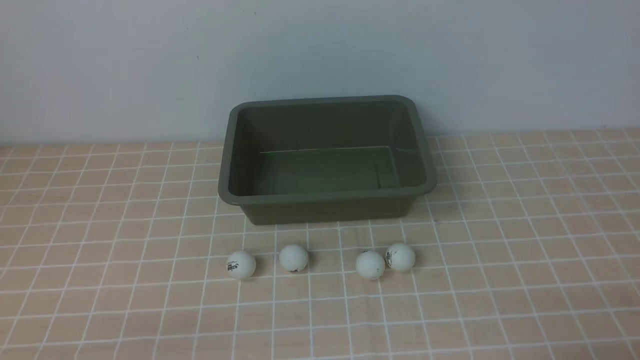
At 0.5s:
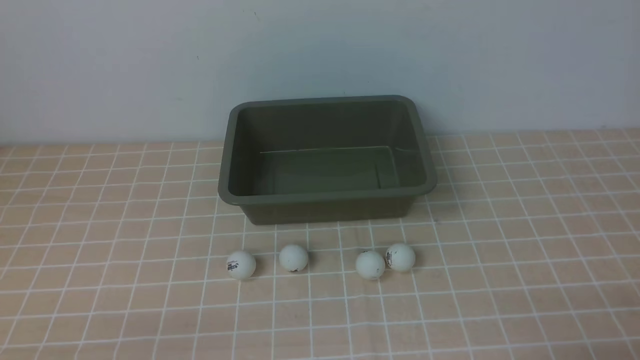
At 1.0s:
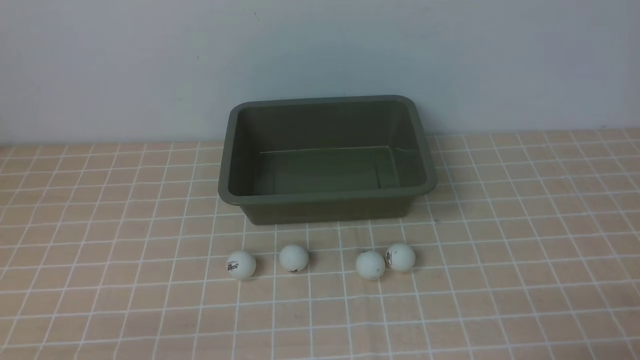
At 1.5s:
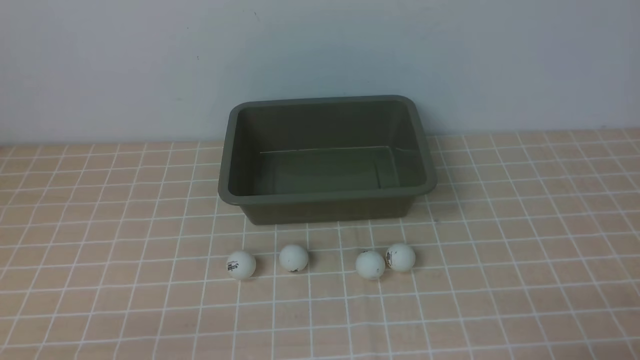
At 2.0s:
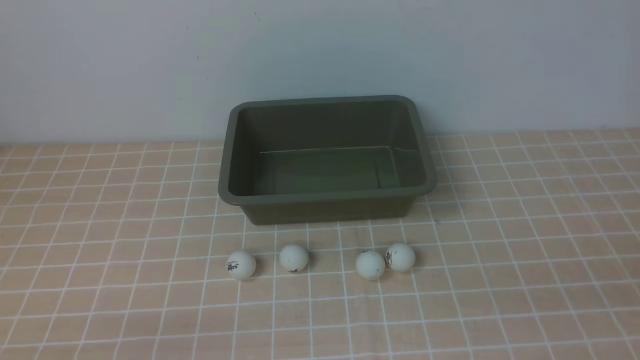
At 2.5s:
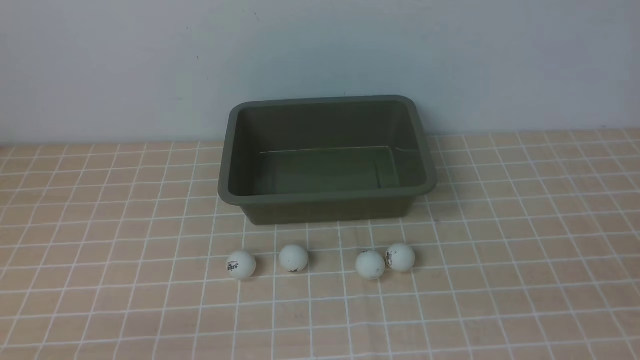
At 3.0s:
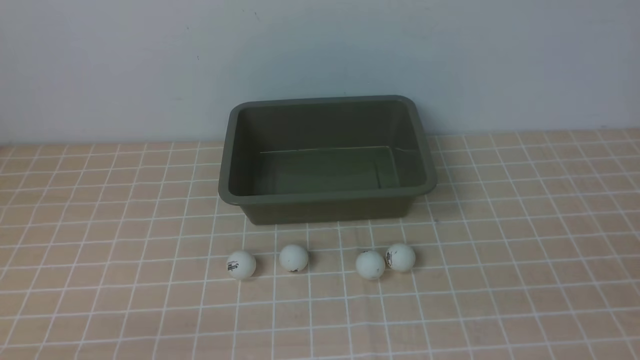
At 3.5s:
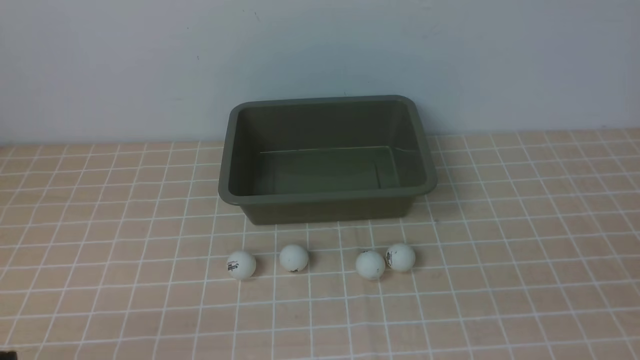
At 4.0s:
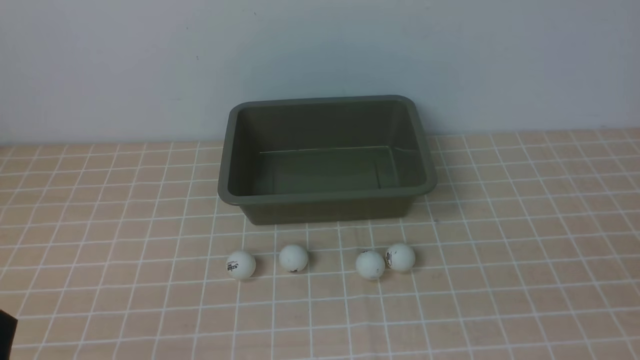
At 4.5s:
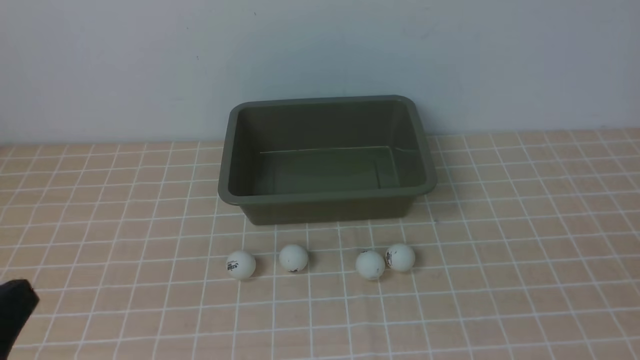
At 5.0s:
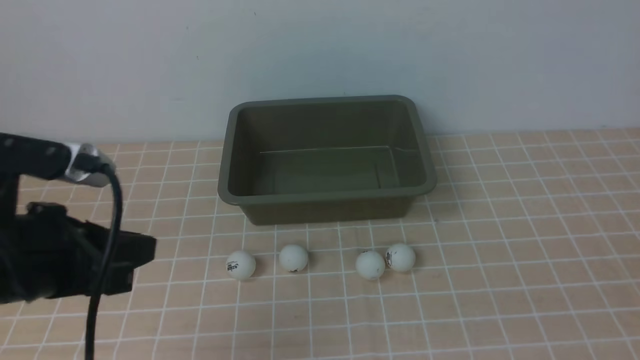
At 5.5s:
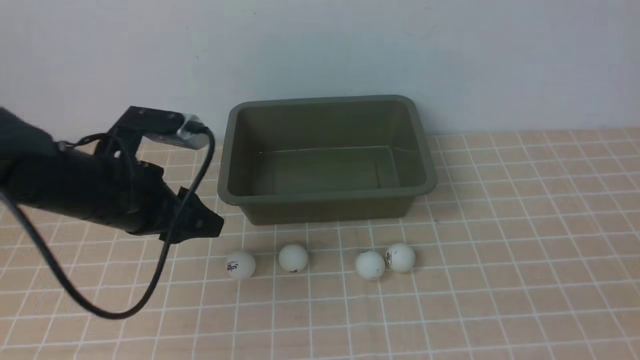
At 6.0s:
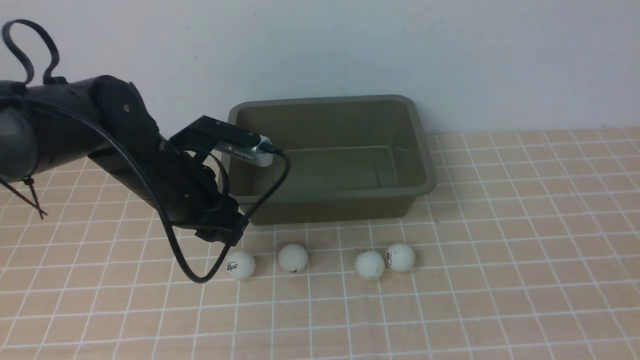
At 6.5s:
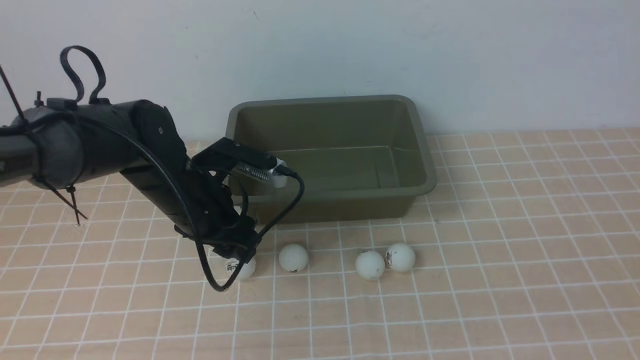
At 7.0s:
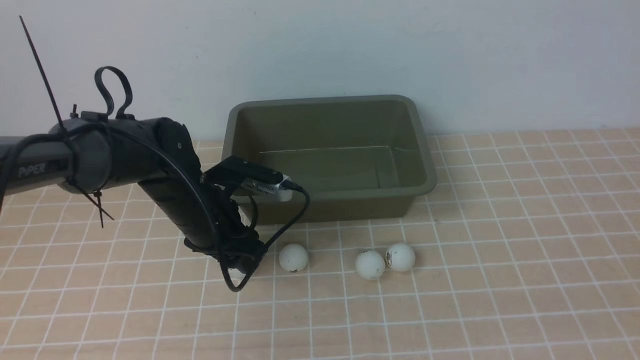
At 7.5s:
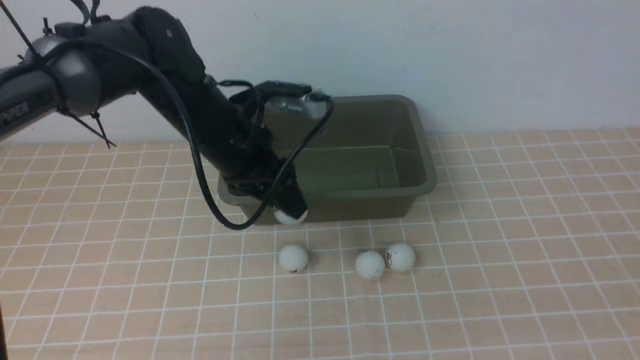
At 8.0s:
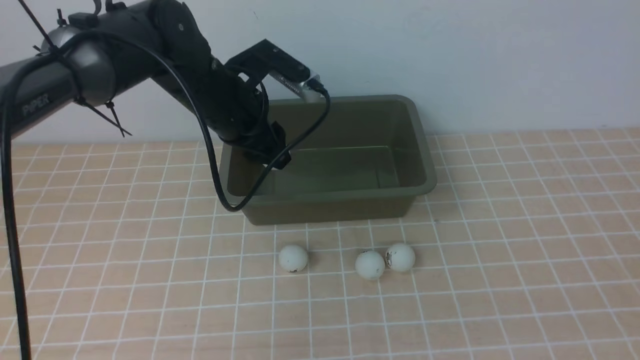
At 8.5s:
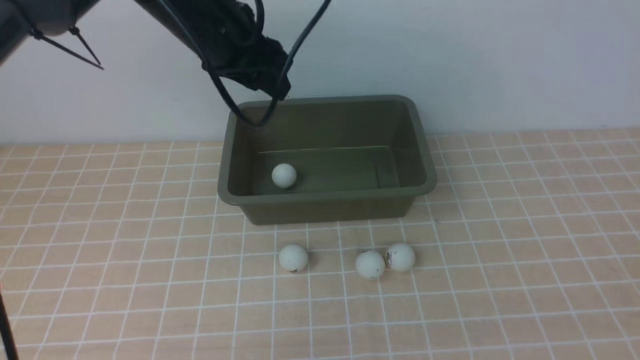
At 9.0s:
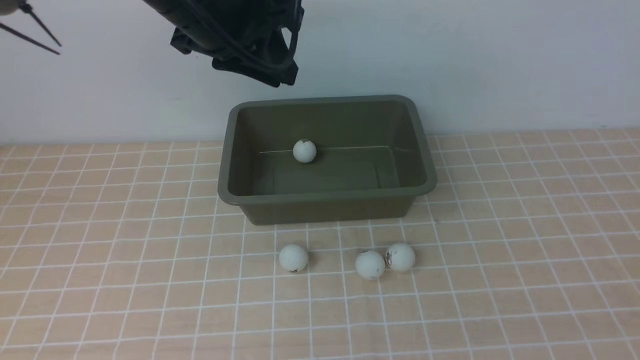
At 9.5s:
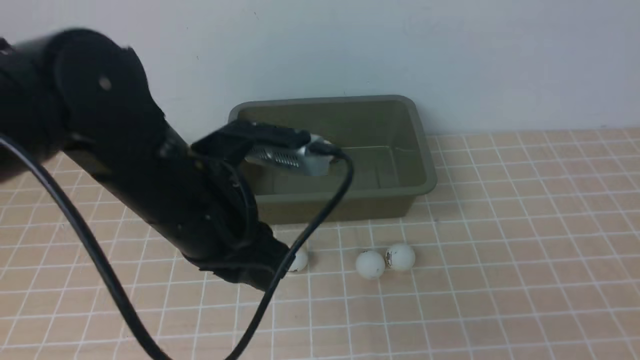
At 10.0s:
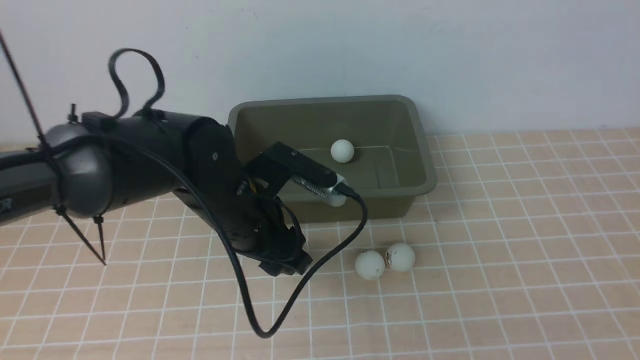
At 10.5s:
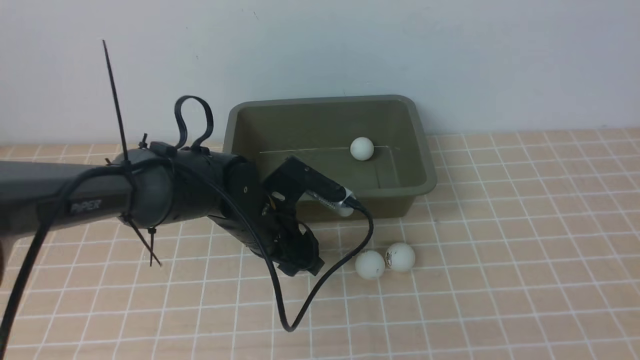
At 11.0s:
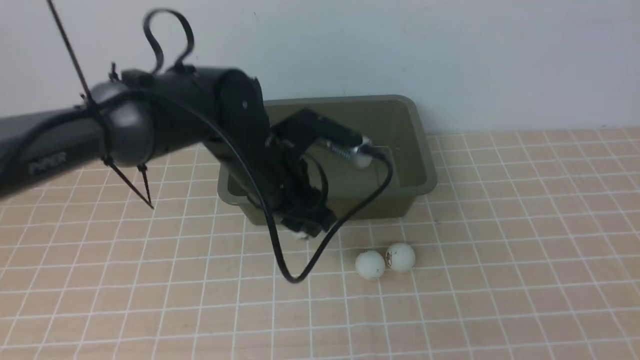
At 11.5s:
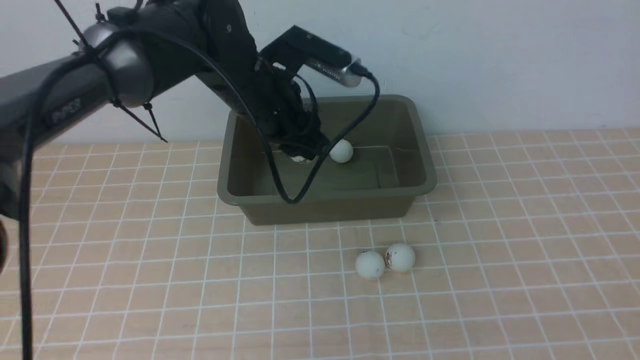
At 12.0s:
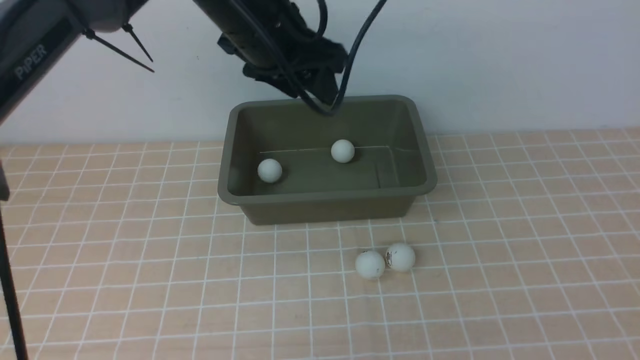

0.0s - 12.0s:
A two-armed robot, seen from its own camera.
Step, 0.0s - 7.0s: use the left arm to clamp the table tennis ball closest to it.
Step, 7.5s - 8.5s: use the left arm to put the table tennis ball into the box.
Step, 9.0s - 10.5s: use the left arm to clamp the table tennis ball closest to it.
Step, 11.0s - 11.5s: use the left arm to put the table tennis ball into the box.
4.0s - 6.0s: The left gripper shifts about 30 cm forward, and opens its fingers.
6.0s - 8.0s: The left gripper is displaced forward and upward by some 10 cm.
8.0s - 10.0s: The left gripper heads backward, covering about 10 cm, goes upward and returns, approximately 10 cm each way, and closes, then reopens.
10.0s - 12.0s: The left gripper travels upward and forward by approximately 15 cm.

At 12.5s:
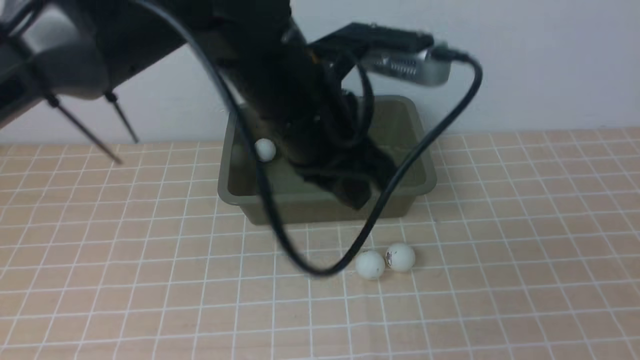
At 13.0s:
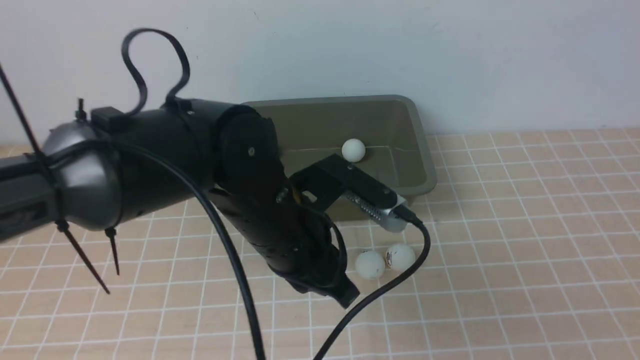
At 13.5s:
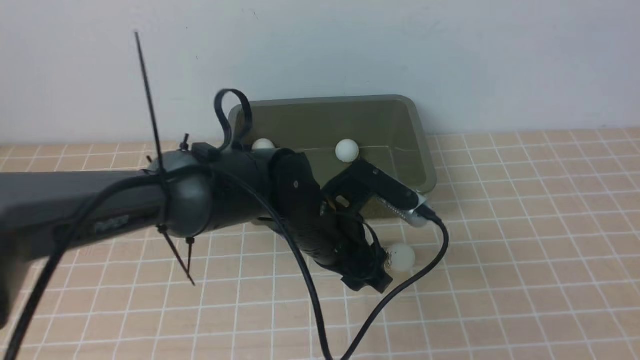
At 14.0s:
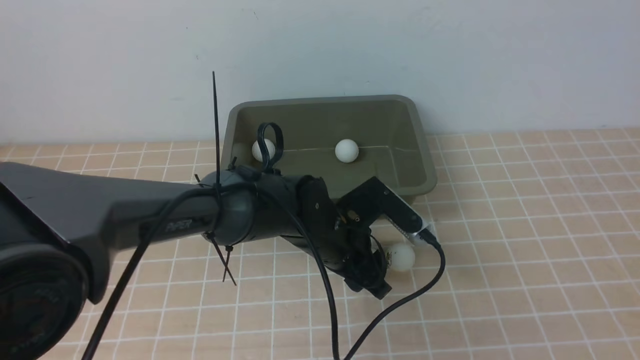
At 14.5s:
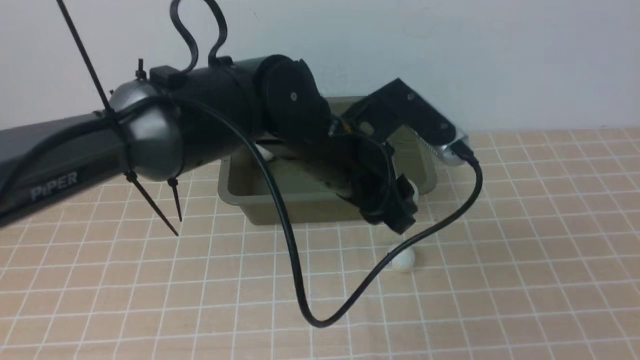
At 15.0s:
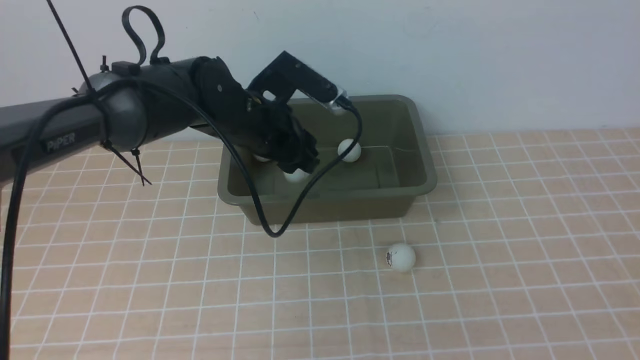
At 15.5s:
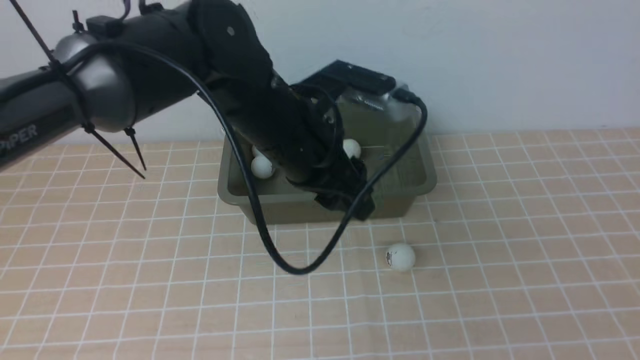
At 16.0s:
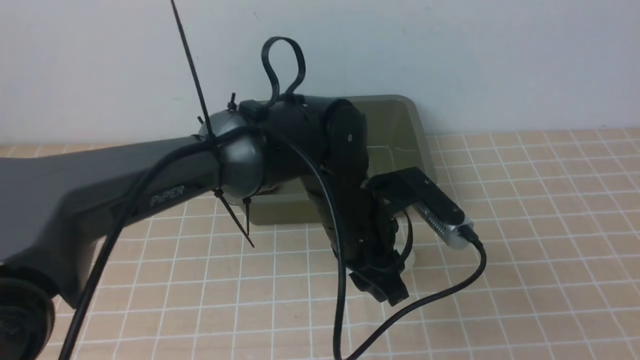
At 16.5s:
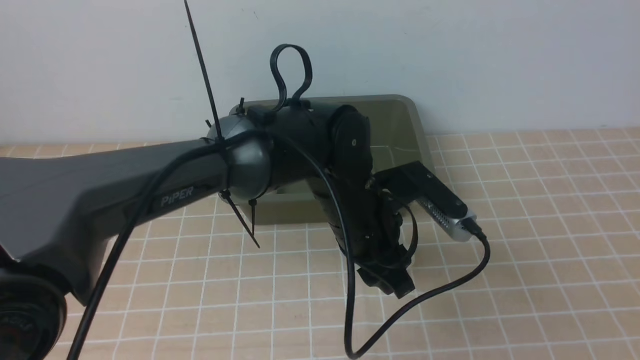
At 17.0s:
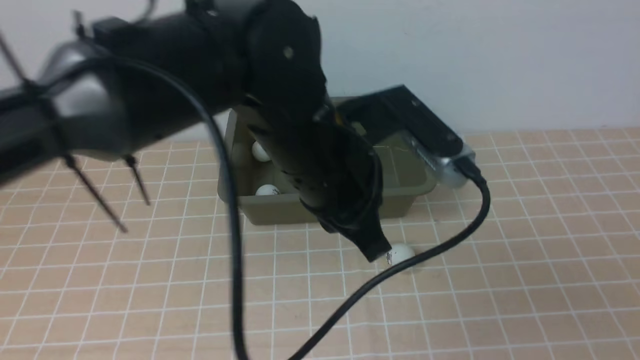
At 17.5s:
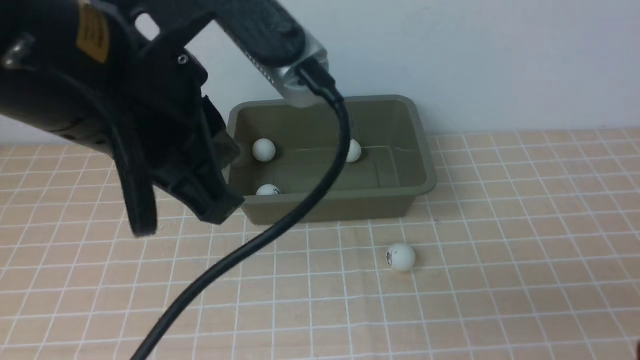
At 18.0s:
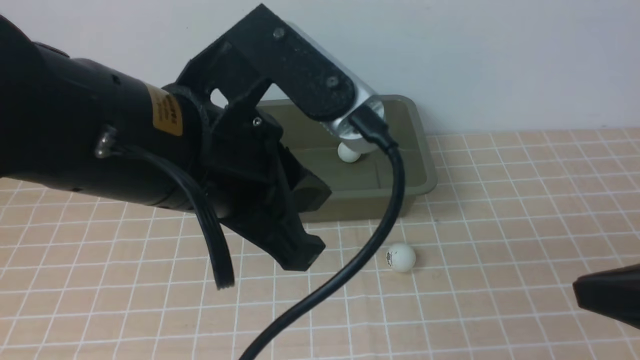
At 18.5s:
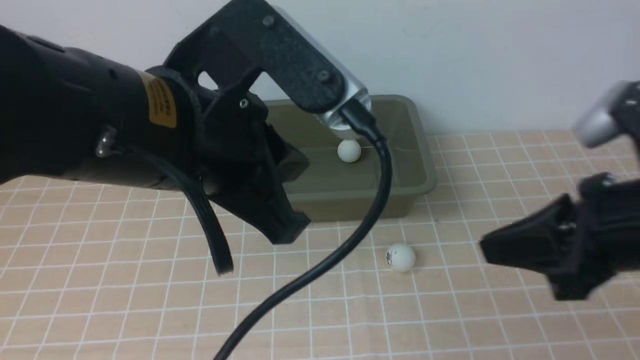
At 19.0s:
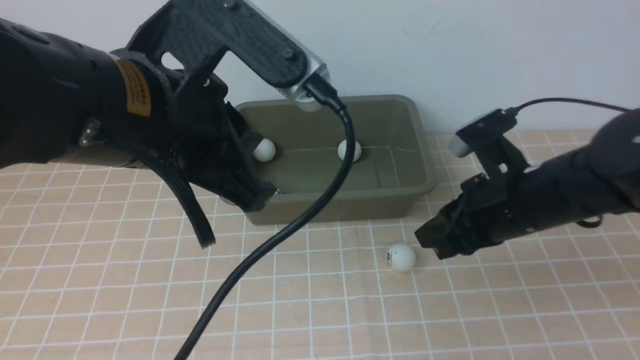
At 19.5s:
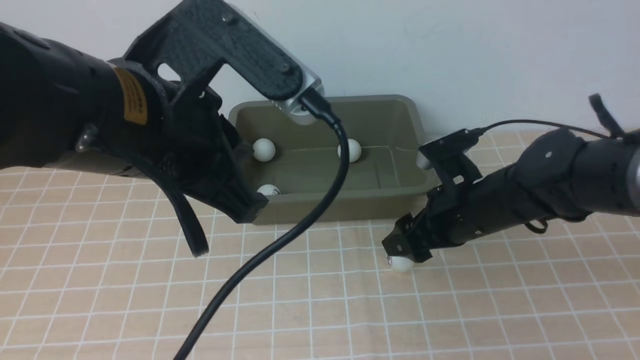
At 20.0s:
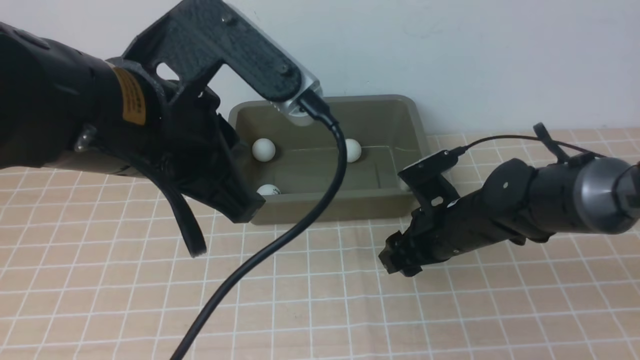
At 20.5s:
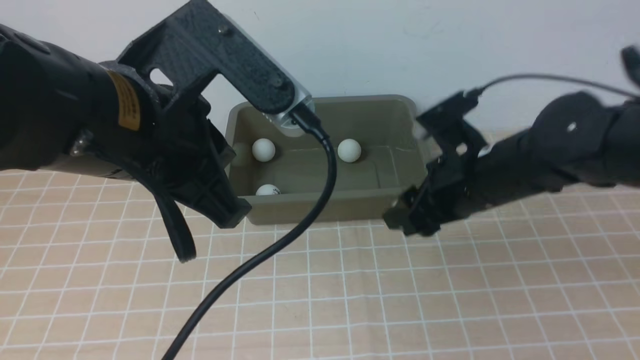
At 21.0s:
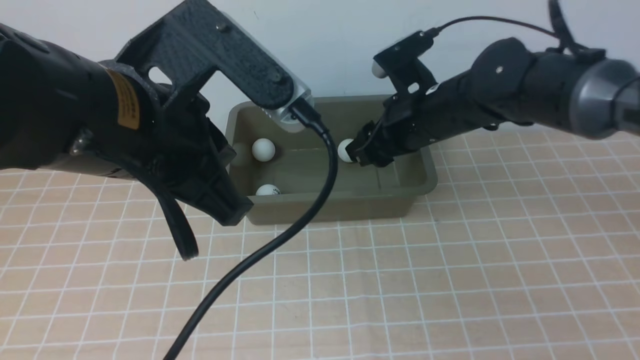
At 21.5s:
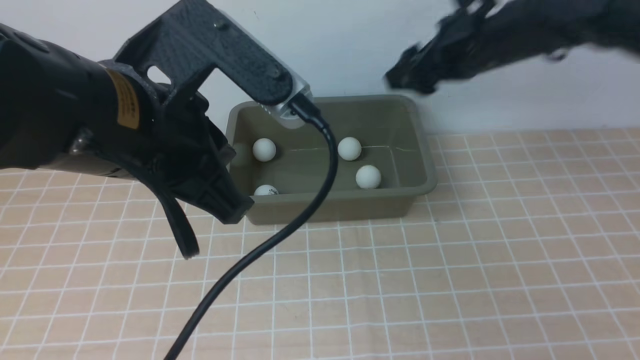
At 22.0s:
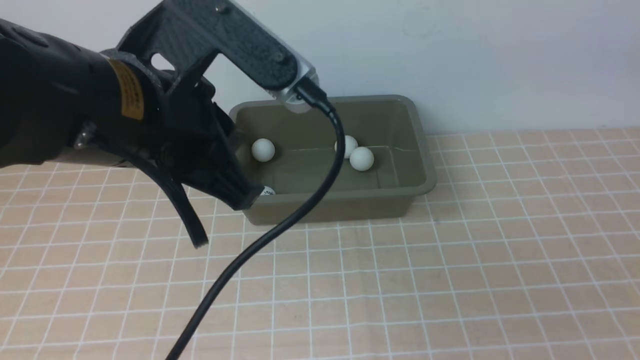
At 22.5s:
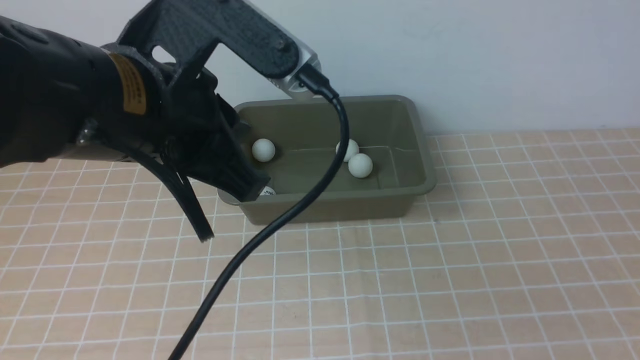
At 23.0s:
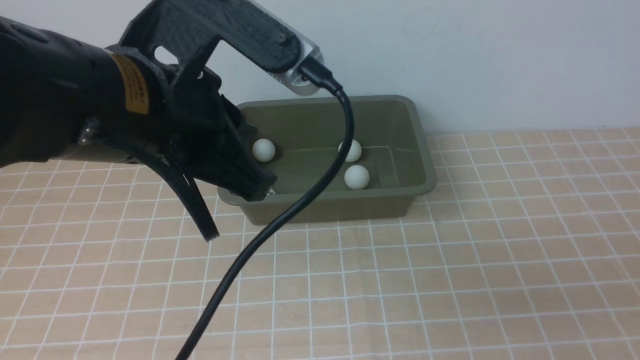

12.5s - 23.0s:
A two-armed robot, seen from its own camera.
Step, 12.5s - 14.5s: use the left arm to clamp the table tennis ball closest to it.
Step, 15.0s - 15.5s: use the left arm to put the table tennis ball into the box.
Step, 16.0s - 20.0s: use the right arm to clamp the table tennis ball closest to it.
Step, 20.5s - 21.5s: use the right arm to put the table tennis ball into the box.
12.5s - 14.5s: The left gripper is displaced downward by approximately 10 cm, and opens its fingers.
14.5s - 16.5s: The left gripper travels to the left and back again, about 5 cm each way.
16.5s - 19.0s: The right gripper heads forward, covering about 30 cm, and opens; the left gripper travels upward, to the left and backward by approximately 25 cm, and closes its fingers.
19.0s - 21.0s: The right gripper travels forward and to the left by approximately 15 cm, and opens its fingers.
21.0s - 23.0s: The right gripper shifts some 40 cm backward and to the right, and closes its fingers.
